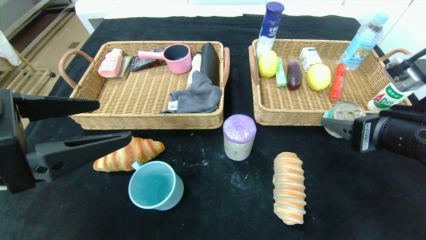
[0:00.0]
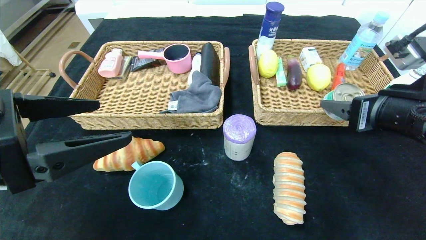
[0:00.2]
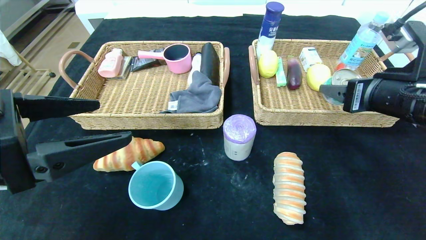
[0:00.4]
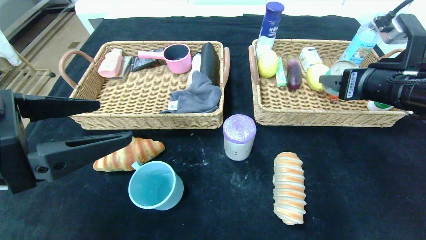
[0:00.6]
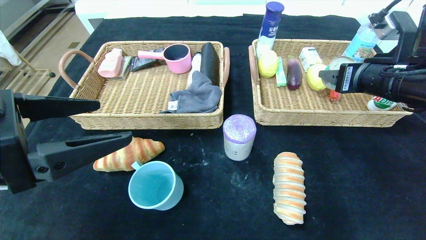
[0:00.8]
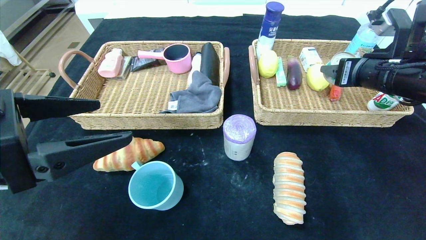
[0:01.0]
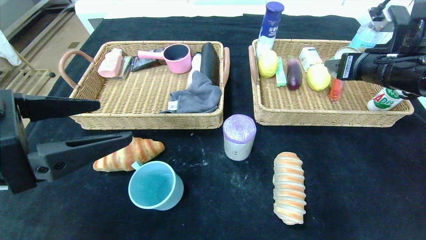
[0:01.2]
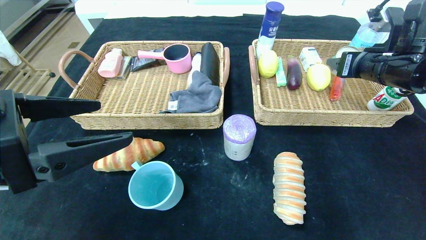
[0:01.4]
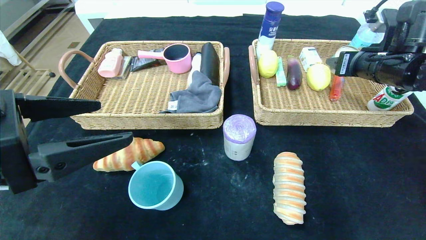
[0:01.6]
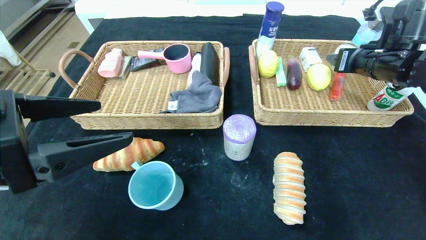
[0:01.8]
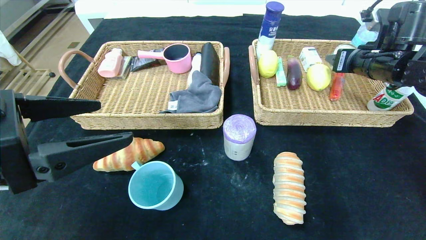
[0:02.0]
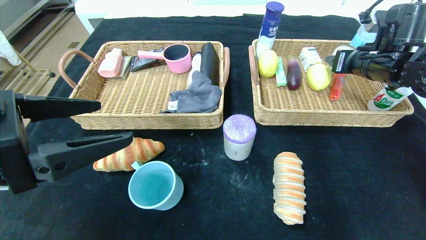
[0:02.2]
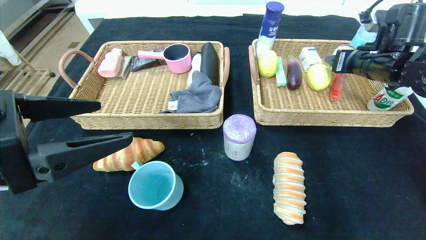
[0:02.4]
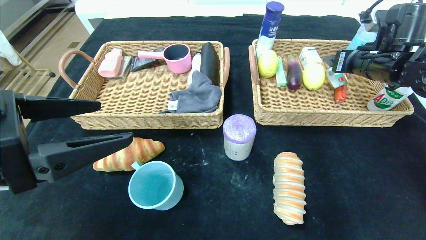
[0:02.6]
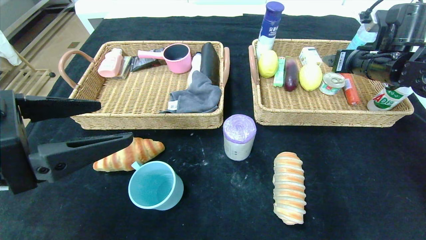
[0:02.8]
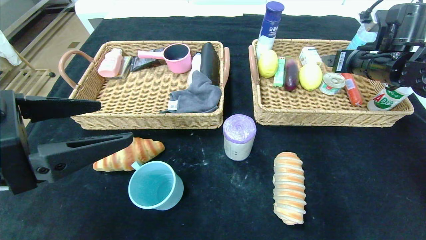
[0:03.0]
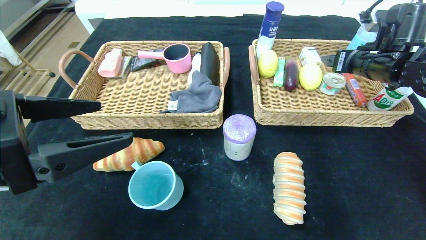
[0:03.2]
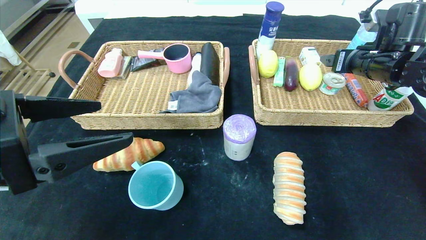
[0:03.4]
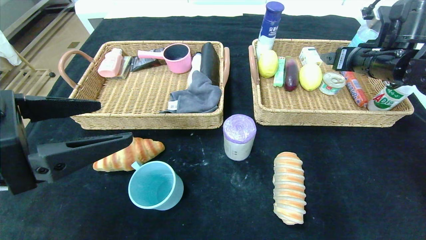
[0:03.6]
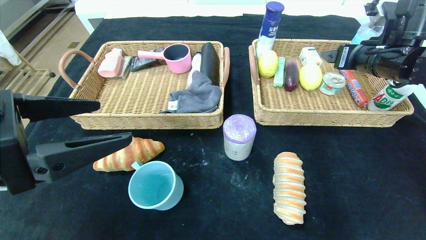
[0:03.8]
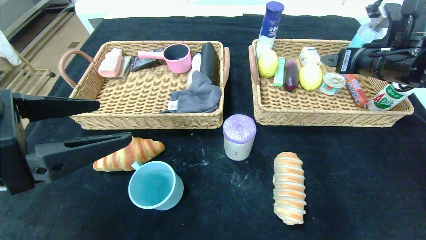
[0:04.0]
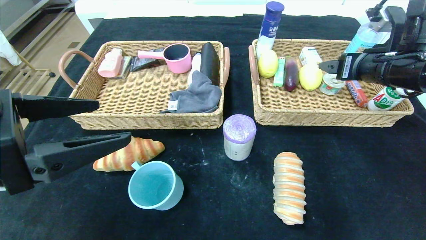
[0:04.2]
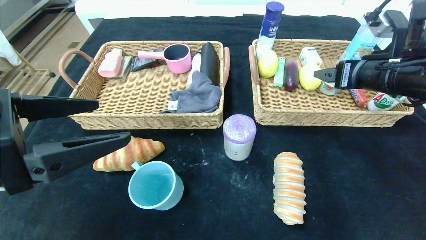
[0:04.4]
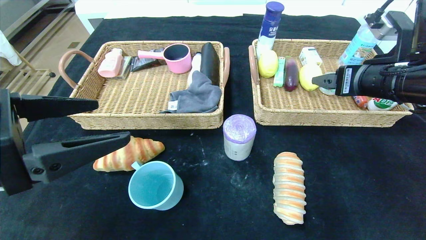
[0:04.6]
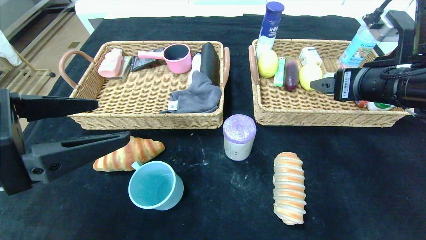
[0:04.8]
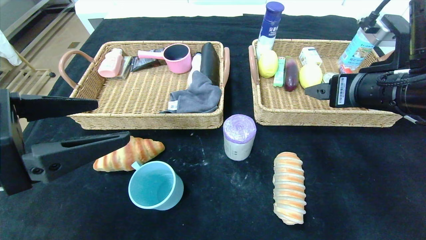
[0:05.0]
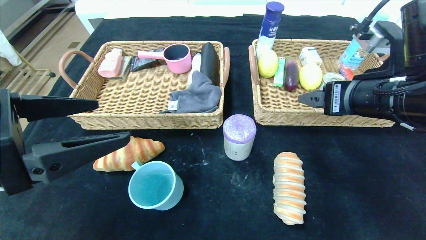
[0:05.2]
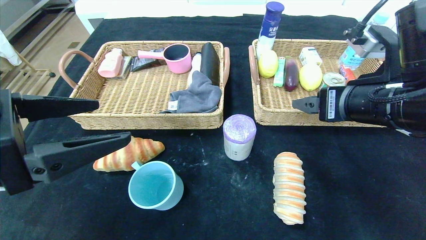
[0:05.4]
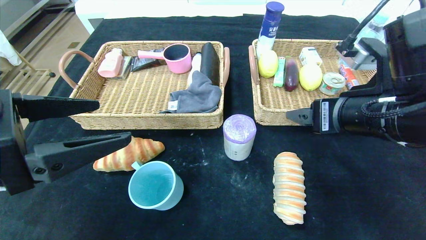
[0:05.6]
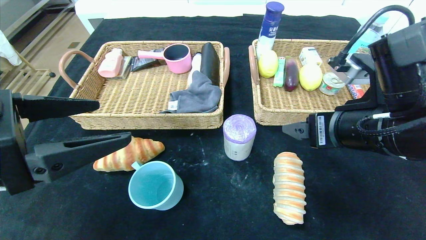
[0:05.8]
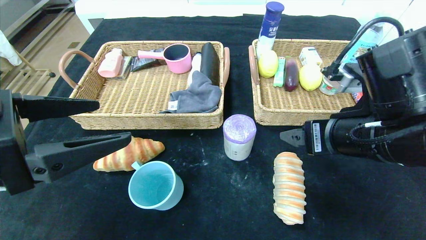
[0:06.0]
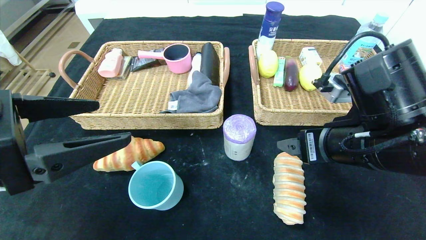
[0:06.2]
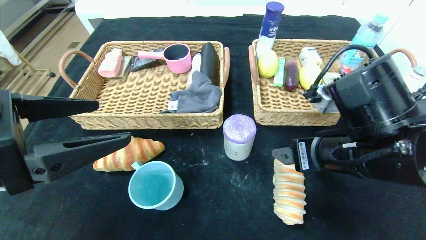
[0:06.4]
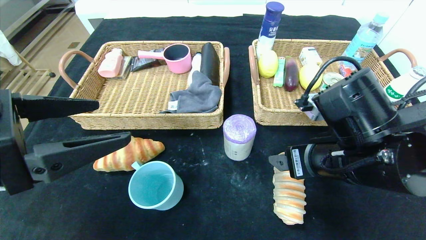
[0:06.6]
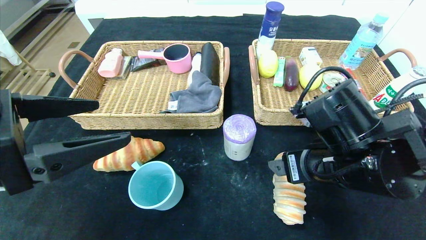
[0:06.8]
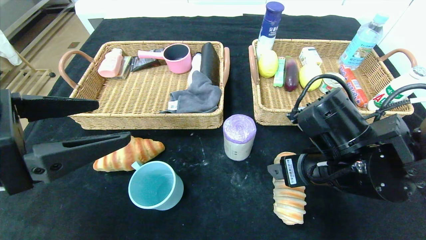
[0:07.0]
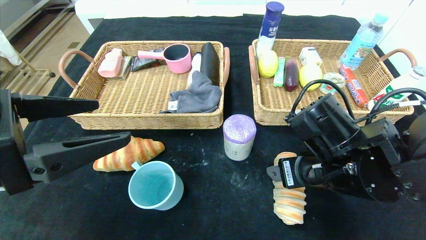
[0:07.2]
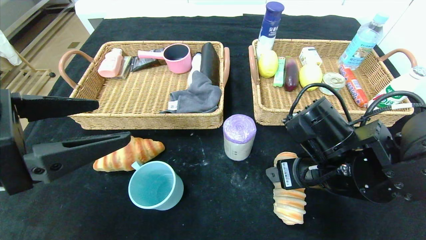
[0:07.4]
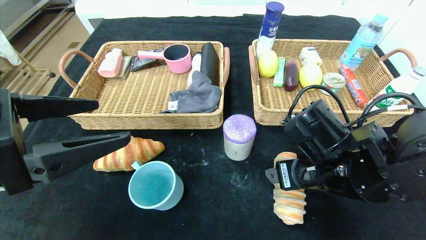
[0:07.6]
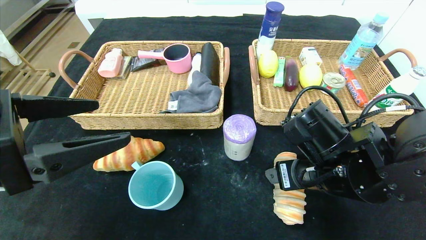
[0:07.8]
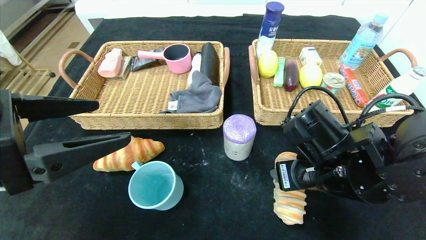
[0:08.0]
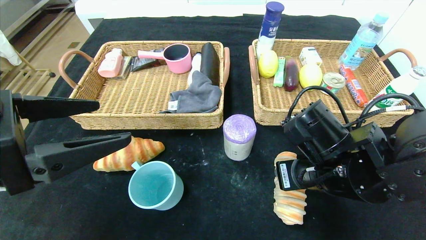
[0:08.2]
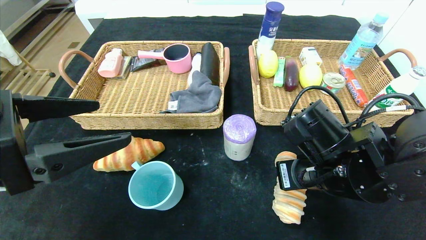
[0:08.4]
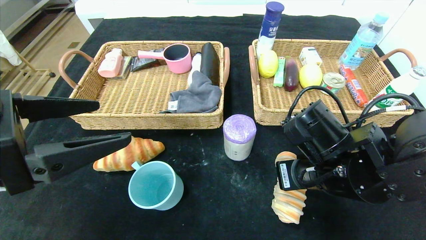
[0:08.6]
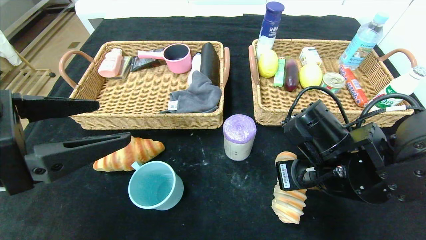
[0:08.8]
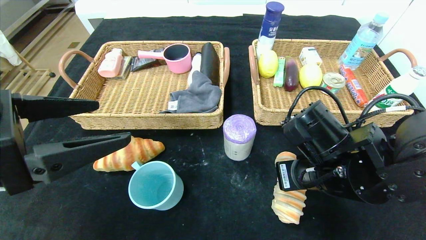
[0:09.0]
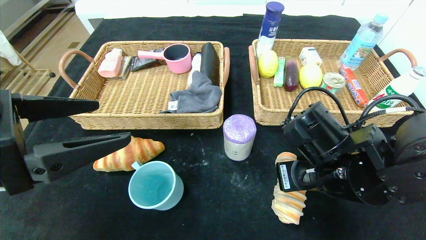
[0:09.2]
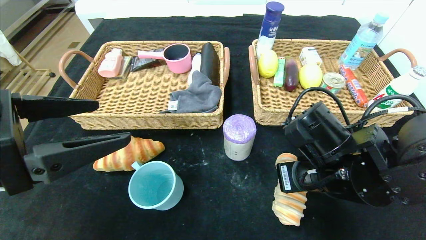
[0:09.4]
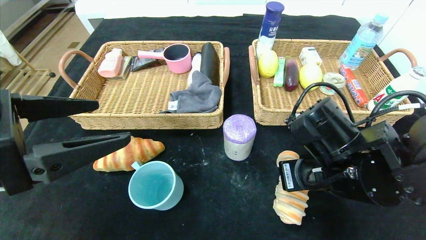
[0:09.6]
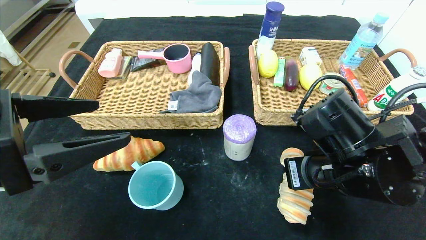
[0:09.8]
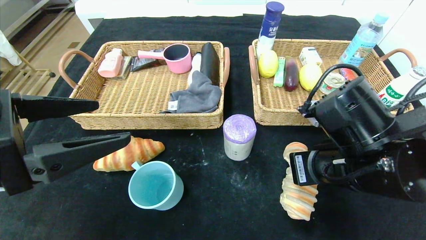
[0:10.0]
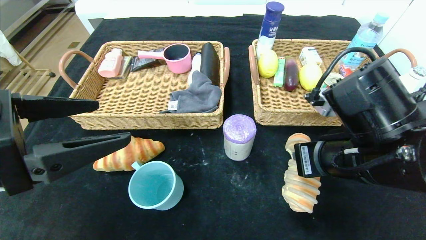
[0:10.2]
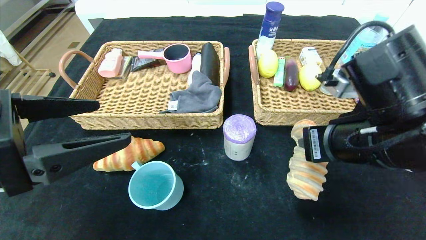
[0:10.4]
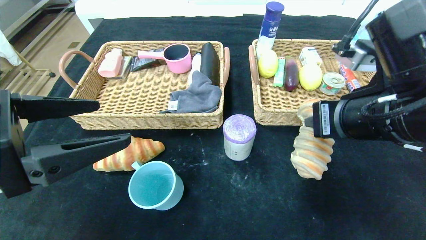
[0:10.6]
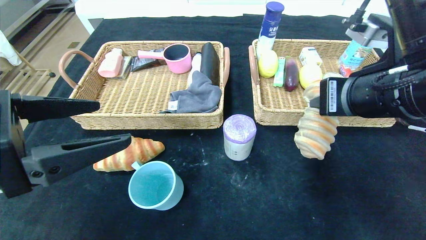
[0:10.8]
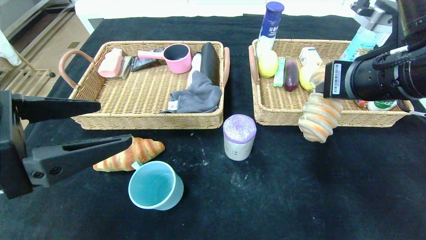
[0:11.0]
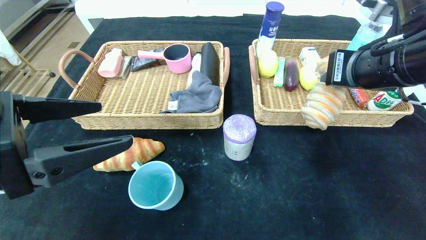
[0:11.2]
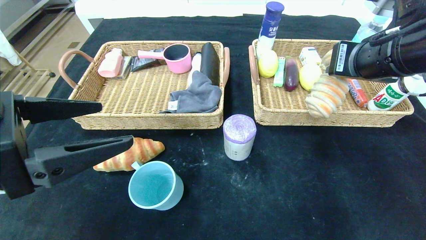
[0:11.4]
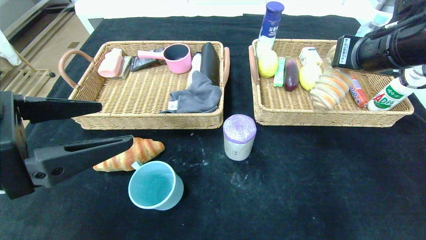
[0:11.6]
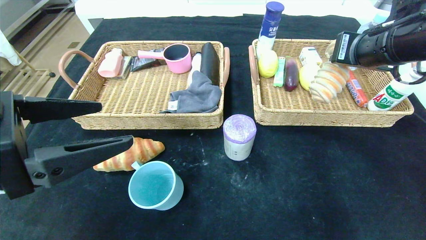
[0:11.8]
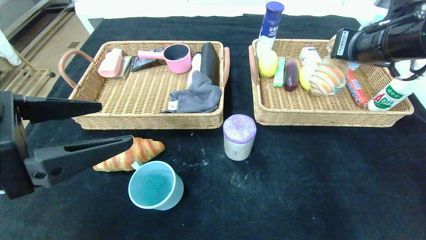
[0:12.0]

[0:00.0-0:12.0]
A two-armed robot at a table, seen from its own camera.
Step, 0:00.0 to 0:03.0: Grasp the can and put it in the right basket.
0:00.0 to 0:01.6: The right gripper goes roughly 15 cm forward.
0:01.6 to 0:03.0: The grippers make only small movements.
0:03.0 to 0:04.4: The right gripper heads backward, covering some 10 cm.
0:04.4 to 0:06.0: The right gripper shifts approximately 10 cm backward and to the left.
0:06.0 to 0:07.6: The right gripper is displaced downward by about 5 cm.
0:07.6 to 0:09.0: The right gripper closes up.
0:09.0 to 0:10.4: The right gripper is displaced upward by roughly 5 cm.
0:10.4 to 0:12.0: The right gripper travels forward, upward and to the right by about 15 cm.

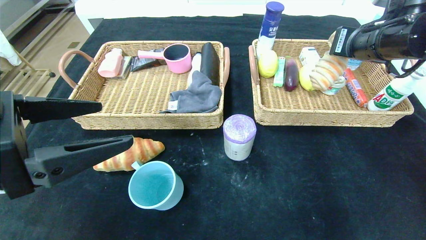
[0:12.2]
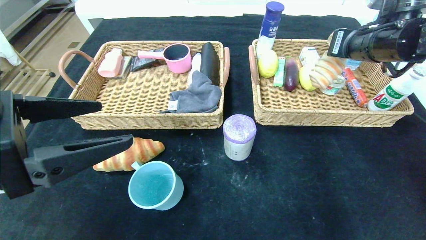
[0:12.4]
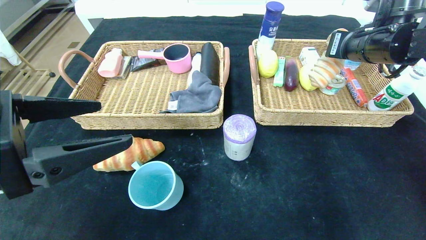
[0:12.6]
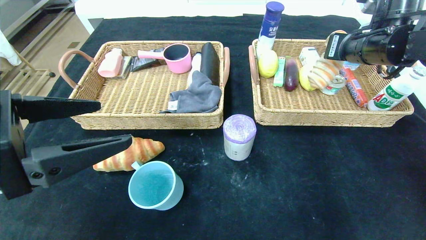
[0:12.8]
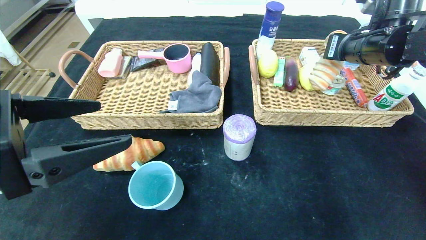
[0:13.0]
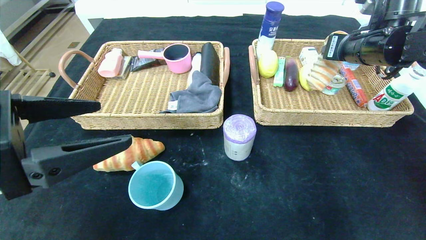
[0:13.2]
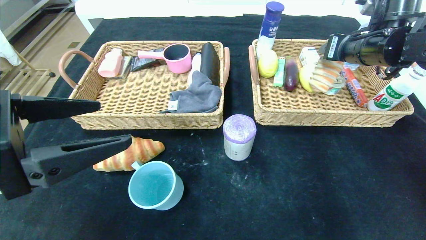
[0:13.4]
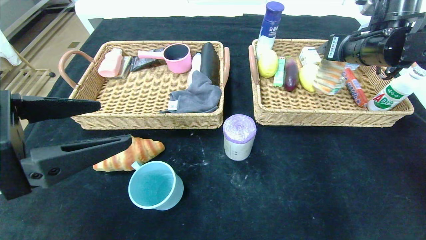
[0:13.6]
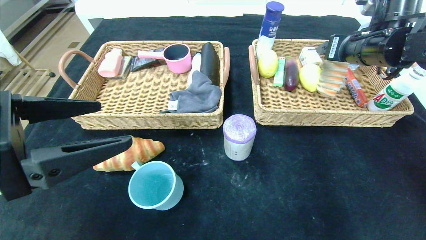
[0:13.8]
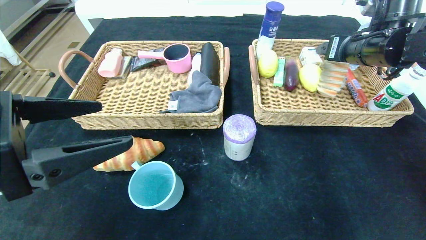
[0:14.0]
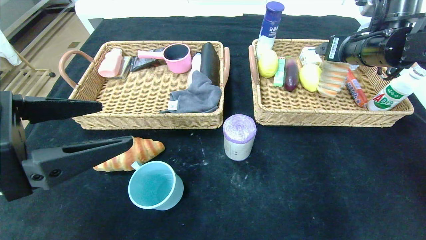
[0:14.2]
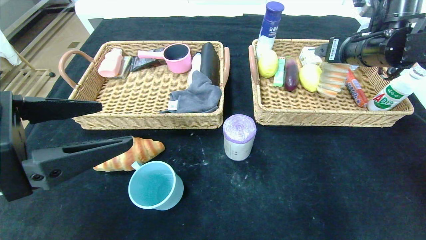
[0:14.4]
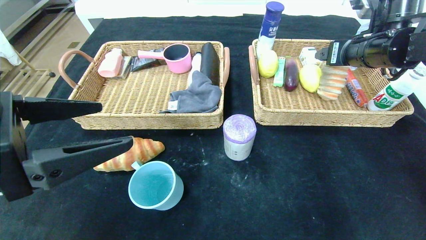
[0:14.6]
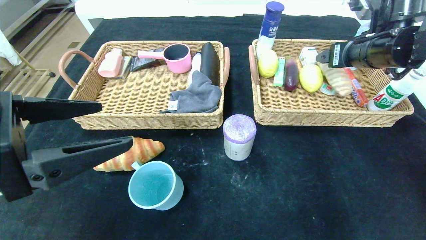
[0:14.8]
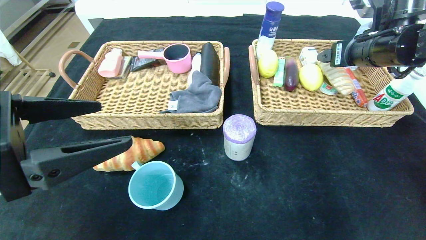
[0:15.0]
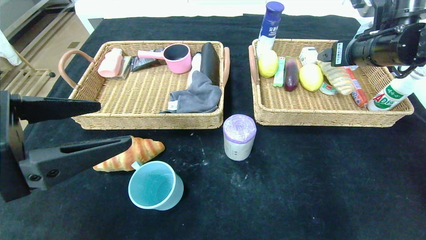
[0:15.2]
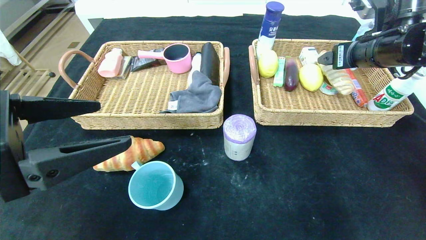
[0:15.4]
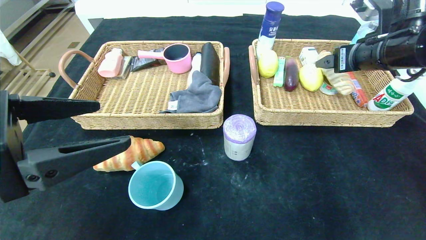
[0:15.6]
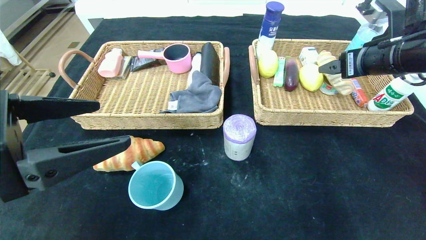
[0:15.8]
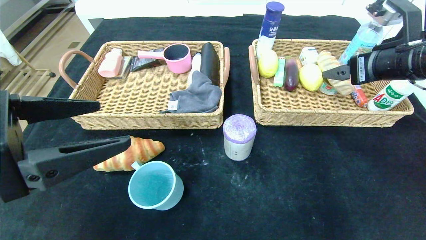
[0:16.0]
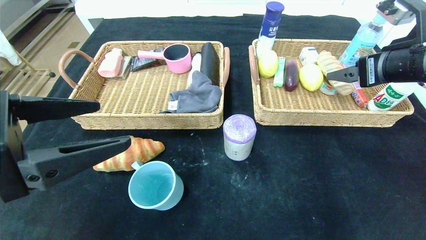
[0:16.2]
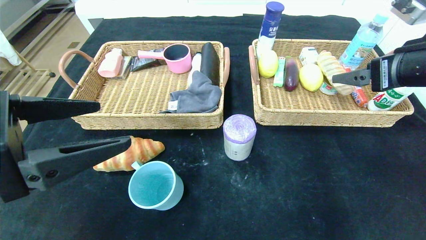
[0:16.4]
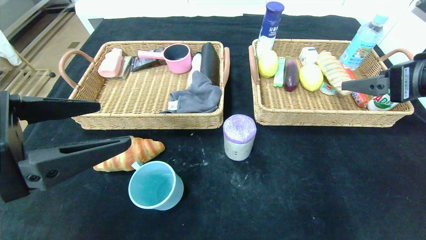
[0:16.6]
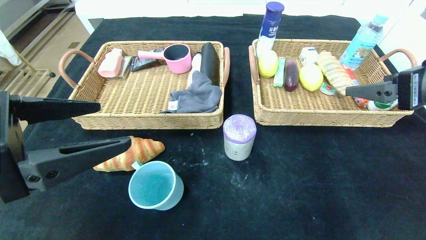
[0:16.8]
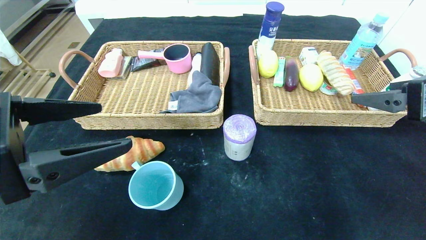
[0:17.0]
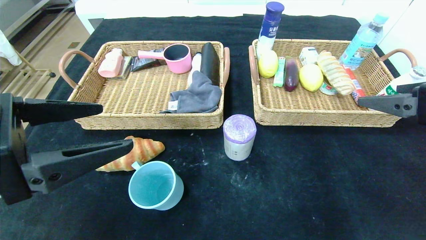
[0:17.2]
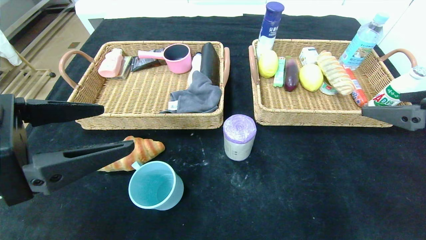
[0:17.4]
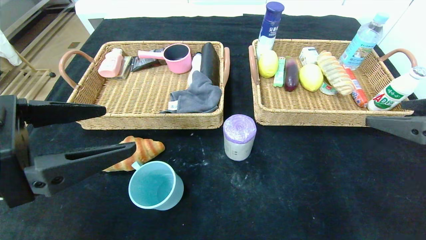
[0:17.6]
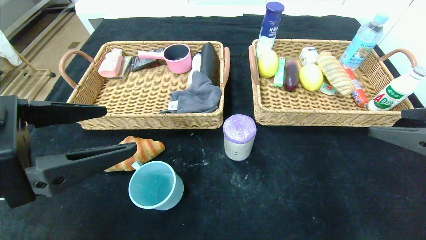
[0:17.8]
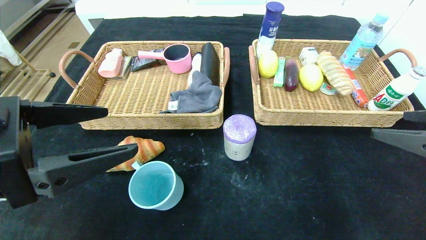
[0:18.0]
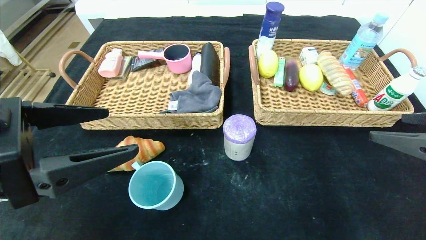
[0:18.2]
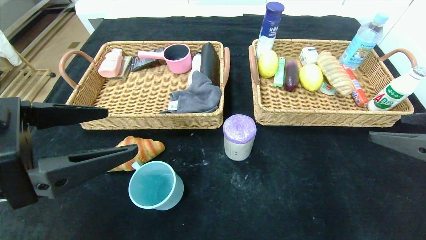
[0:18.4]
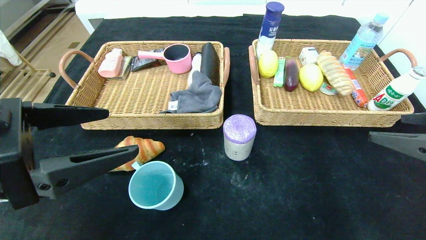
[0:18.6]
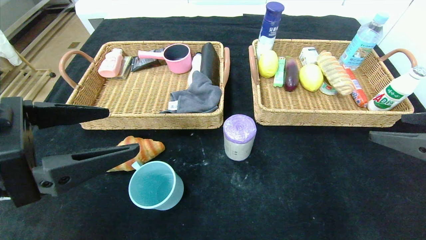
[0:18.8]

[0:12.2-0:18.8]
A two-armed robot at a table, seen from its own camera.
Step, 0:12.2 to 0:14.8: Grasp the long bread and put it in the right basket.
0:12.2 to 0:13.8: The right gripper opens its fingers.
0:13.8 to 0:15.4: The grippers move only a little.
0:15.4 to 0:17.2: The right gripper travels backward by some 15 cm.
0:17.2 to 0:18.8: The grippers move only a little.
